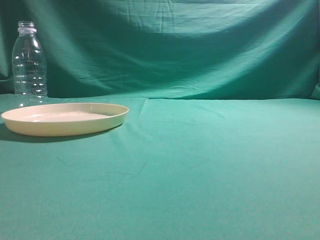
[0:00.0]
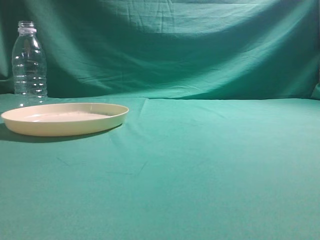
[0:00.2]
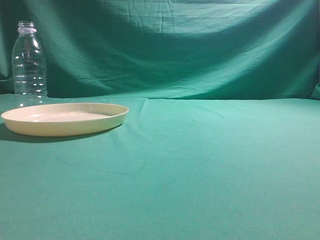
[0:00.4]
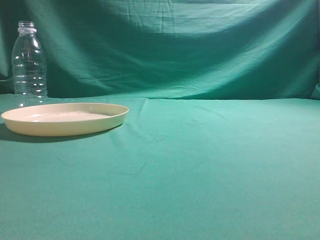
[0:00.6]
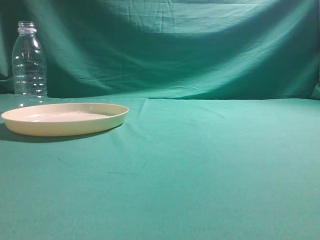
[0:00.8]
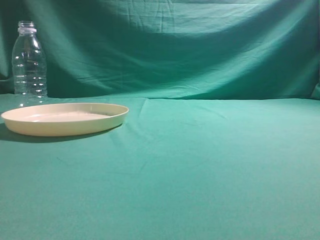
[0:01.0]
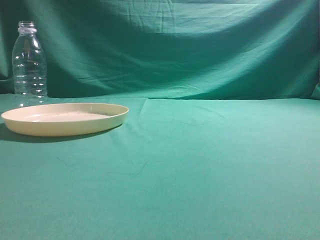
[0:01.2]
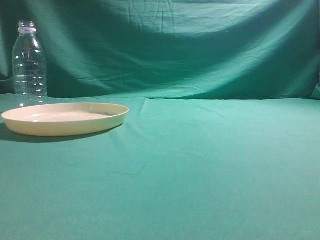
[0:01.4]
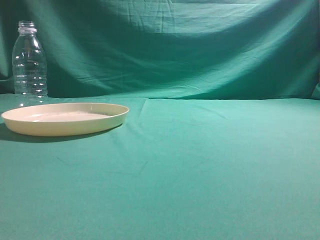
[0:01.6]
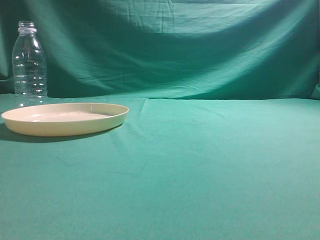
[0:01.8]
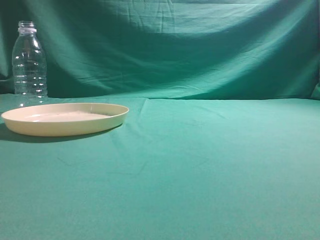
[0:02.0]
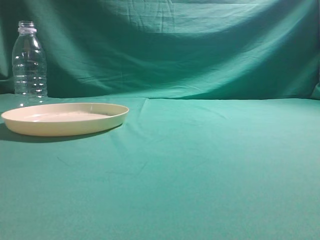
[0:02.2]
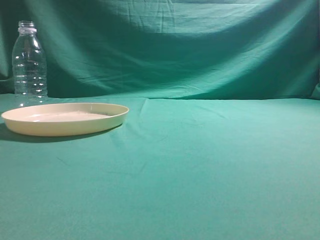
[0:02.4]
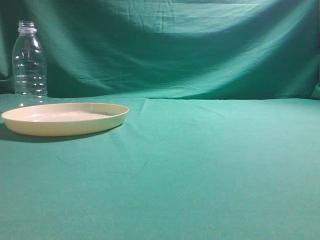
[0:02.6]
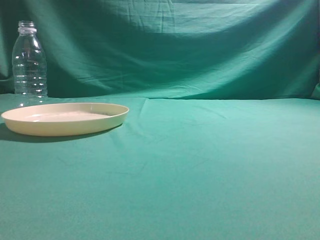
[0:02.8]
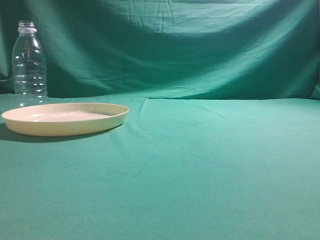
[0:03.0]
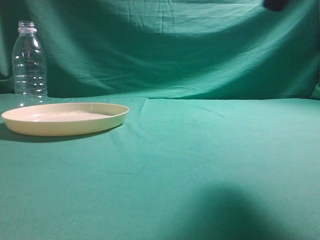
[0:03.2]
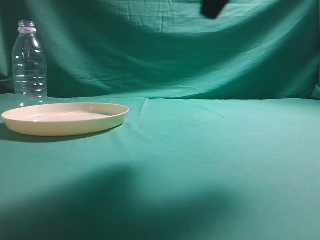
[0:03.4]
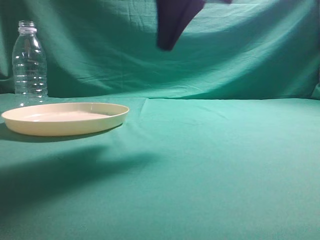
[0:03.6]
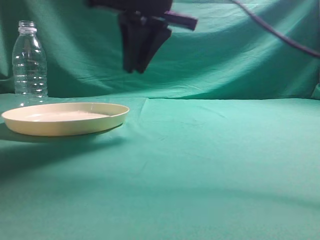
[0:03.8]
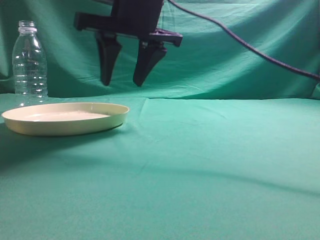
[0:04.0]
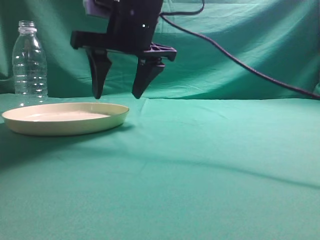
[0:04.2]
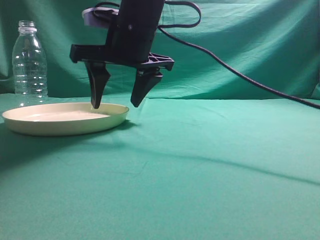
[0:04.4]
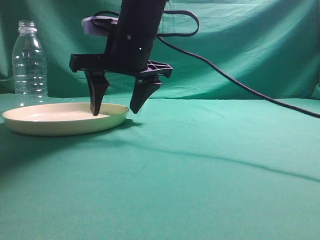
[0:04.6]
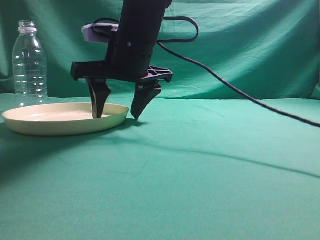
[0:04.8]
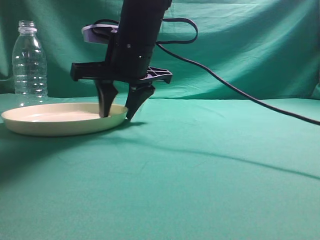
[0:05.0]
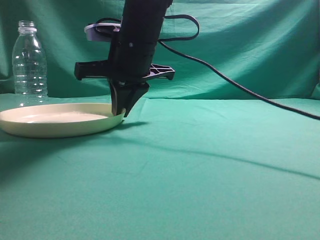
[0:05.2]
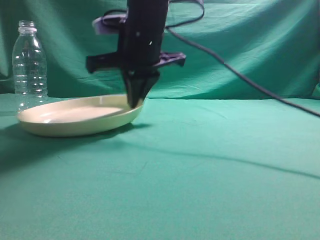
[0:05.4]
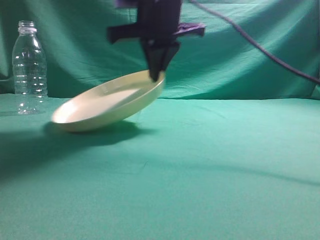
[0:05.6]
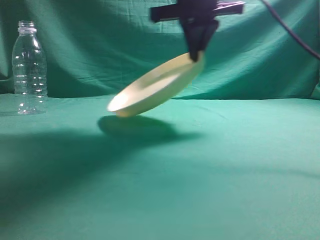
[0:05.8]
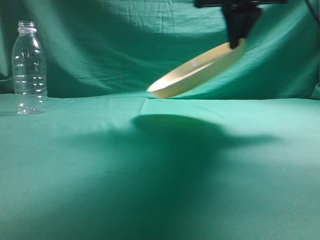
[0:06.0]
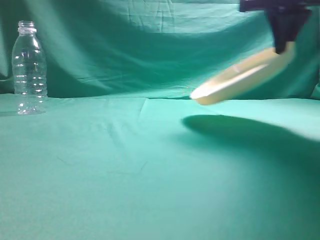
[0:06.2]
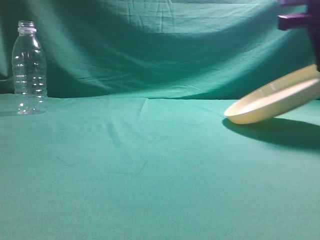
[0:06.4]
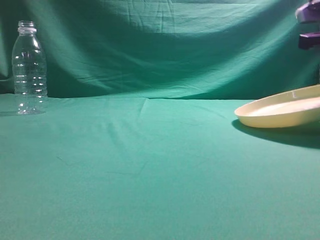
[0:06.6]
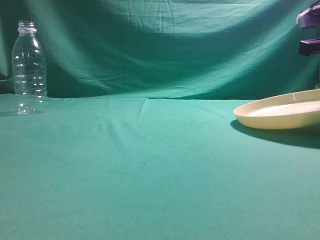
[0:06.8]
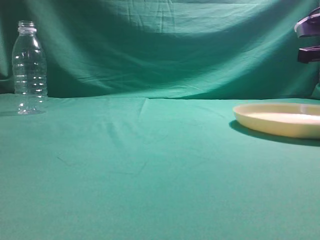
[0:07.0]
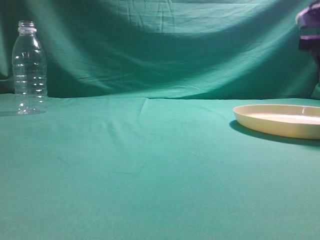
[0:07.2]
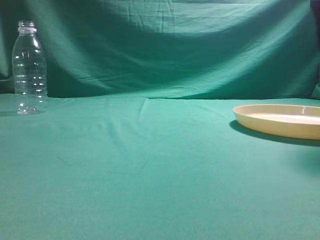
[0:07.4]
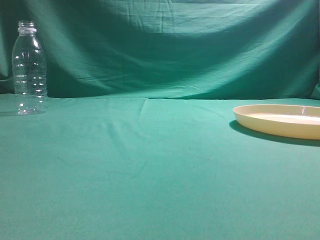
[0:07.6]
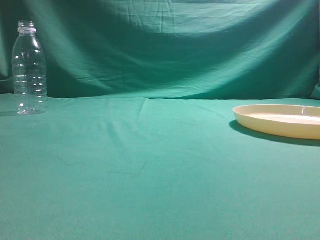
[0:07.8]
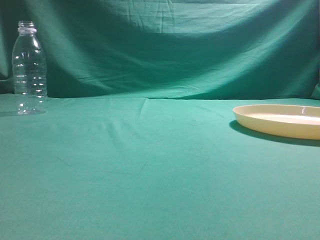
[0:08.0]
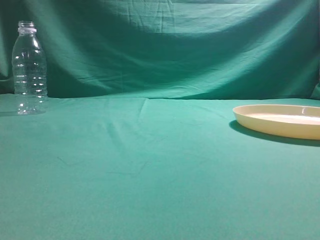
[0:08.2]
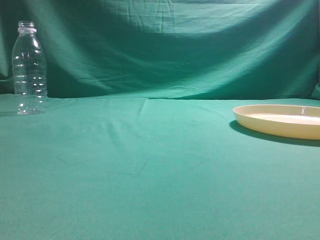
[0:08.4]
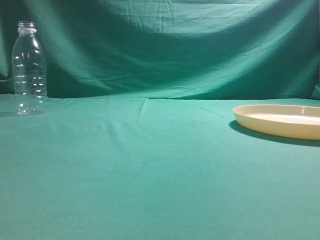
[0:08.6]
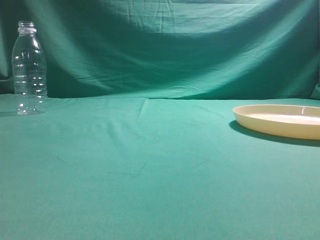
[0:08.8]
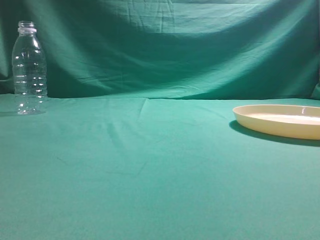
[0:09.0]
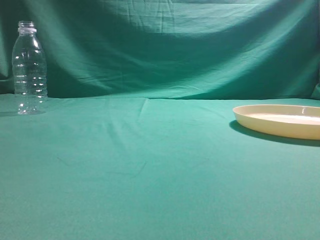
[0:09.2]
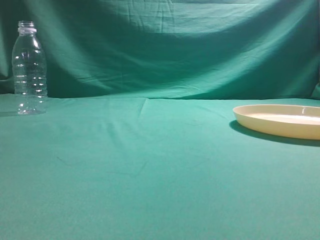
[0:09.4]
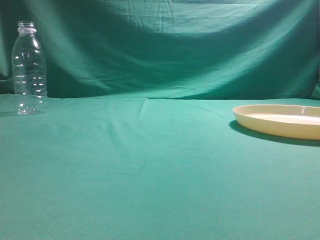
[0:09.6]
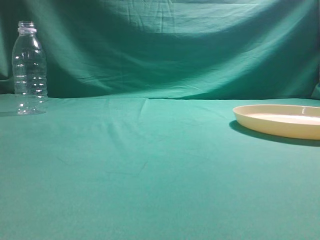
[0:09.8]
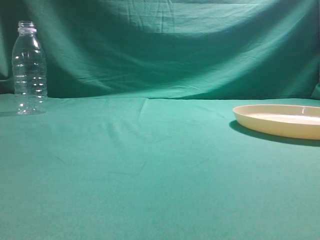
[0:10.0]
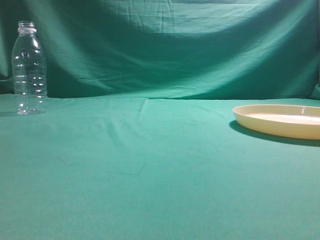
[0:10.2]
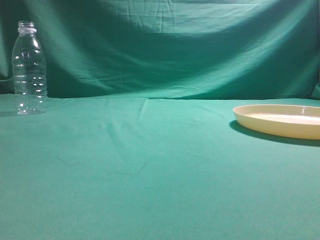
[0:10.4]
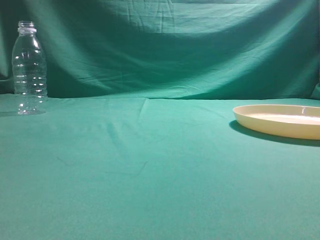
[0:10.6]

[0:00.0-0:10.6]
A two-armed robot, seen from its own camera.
Step, 0:00.0 to 0:05.4: Pick the container that can hold fruits.
Step, 0:05.6 to 0:07.2: Move the picked object to the right side of the table.
0:03.0 to 0:04.6: The right gripper goes some 30 cm to the left and forward, and opens its fingers.
0:04.6 to 0:06.0: The right gripper shifts approximately 15 cm to the right and upward, and closes.
0:06.0 to 0:07.6: The right gripper is displaced to the right by about 15 cm, and opens.
